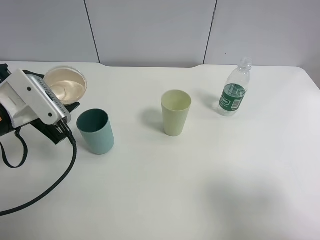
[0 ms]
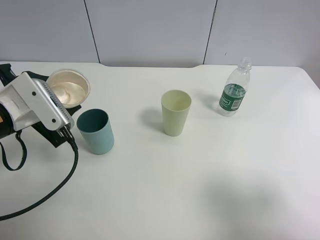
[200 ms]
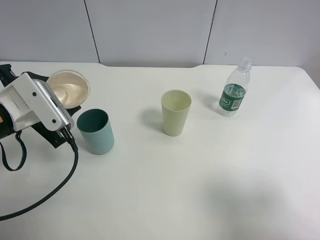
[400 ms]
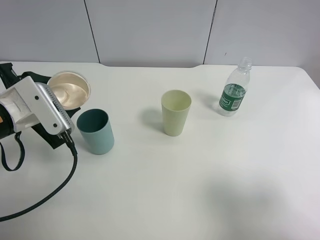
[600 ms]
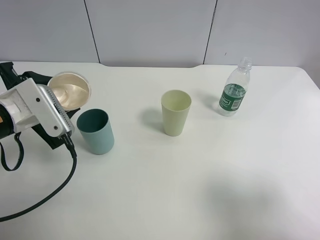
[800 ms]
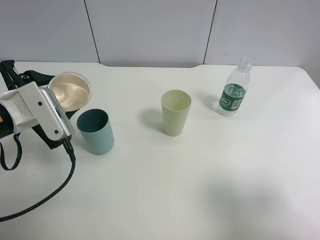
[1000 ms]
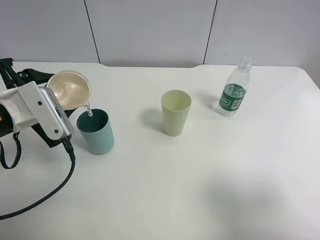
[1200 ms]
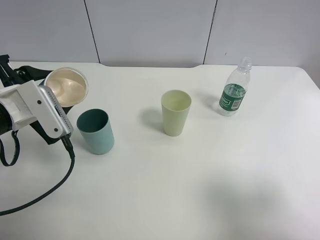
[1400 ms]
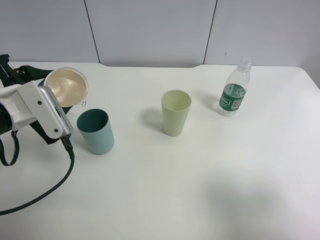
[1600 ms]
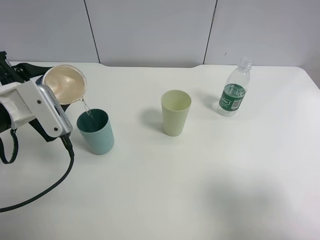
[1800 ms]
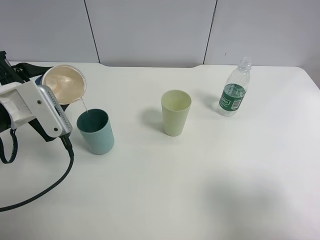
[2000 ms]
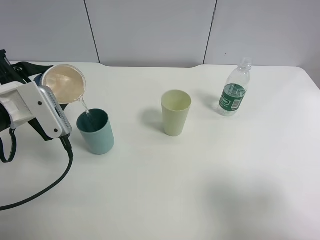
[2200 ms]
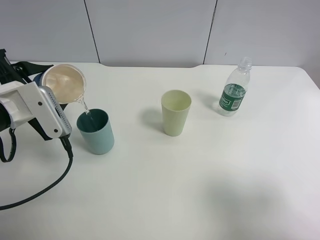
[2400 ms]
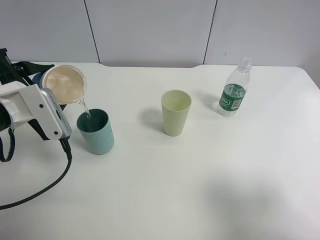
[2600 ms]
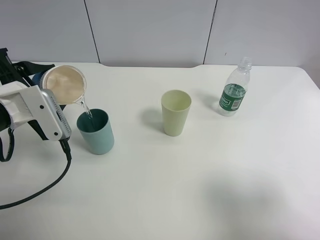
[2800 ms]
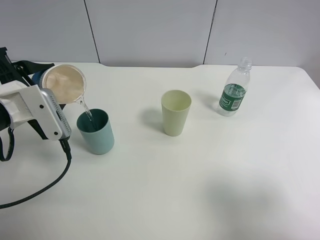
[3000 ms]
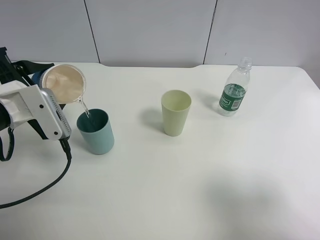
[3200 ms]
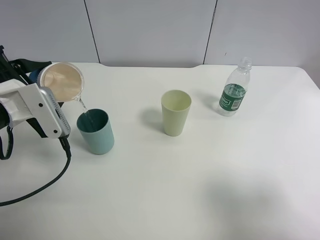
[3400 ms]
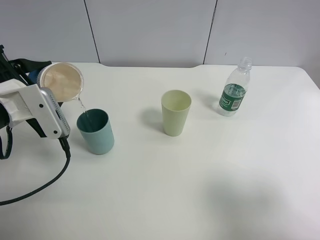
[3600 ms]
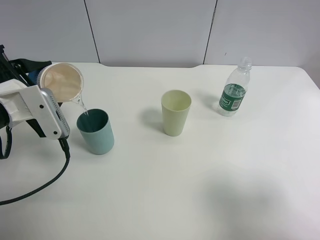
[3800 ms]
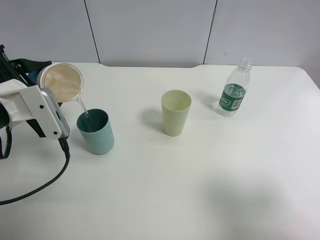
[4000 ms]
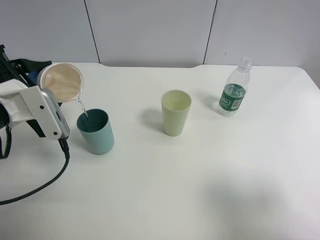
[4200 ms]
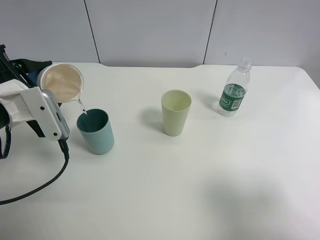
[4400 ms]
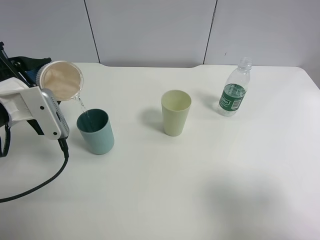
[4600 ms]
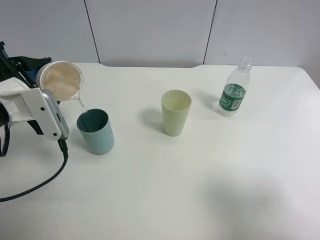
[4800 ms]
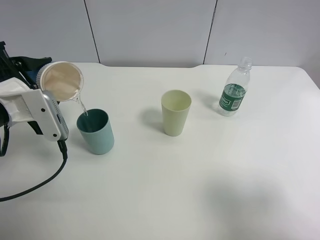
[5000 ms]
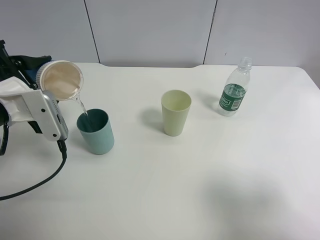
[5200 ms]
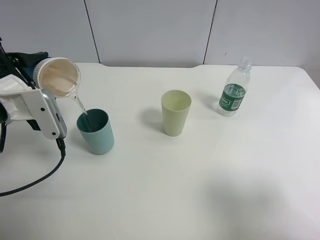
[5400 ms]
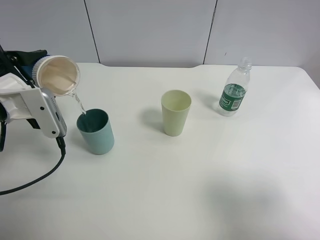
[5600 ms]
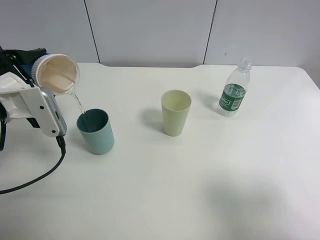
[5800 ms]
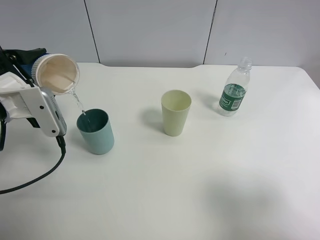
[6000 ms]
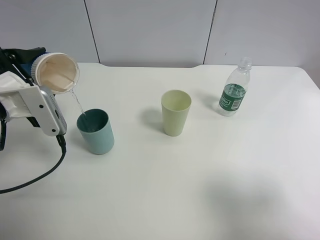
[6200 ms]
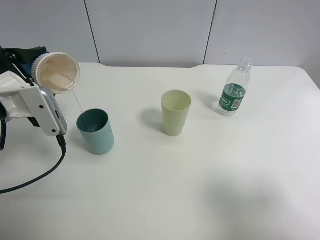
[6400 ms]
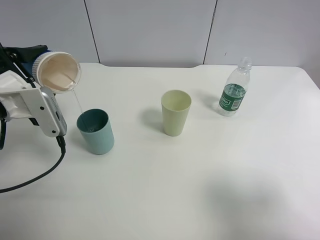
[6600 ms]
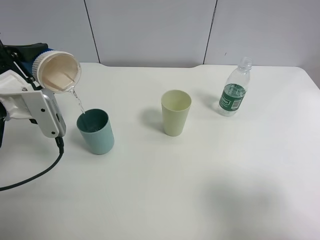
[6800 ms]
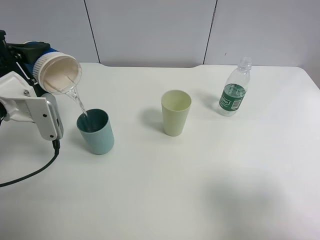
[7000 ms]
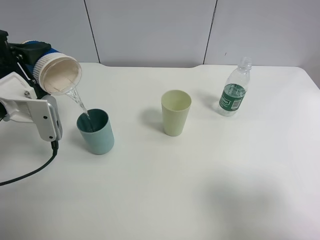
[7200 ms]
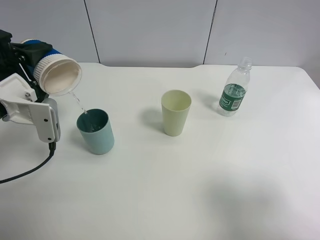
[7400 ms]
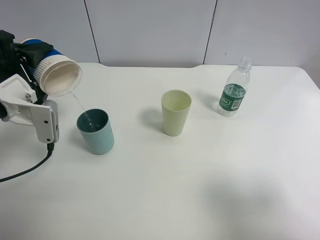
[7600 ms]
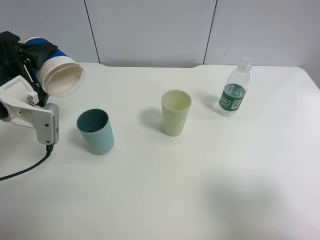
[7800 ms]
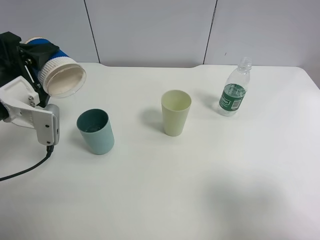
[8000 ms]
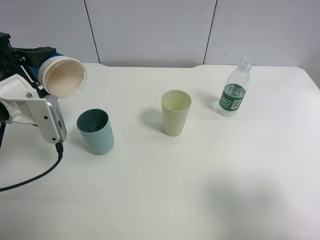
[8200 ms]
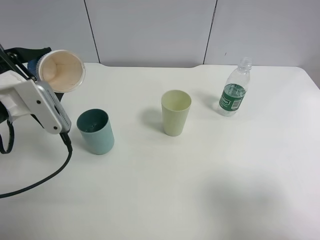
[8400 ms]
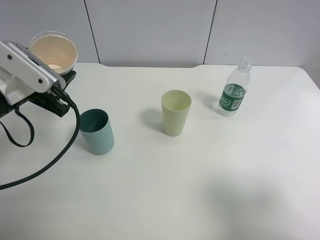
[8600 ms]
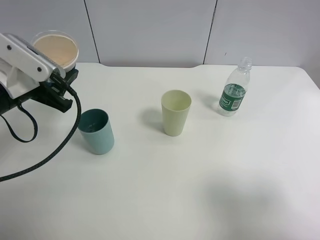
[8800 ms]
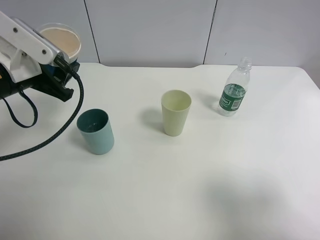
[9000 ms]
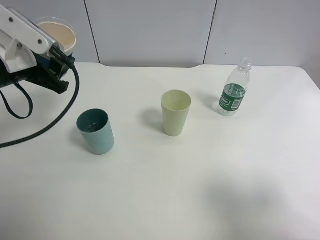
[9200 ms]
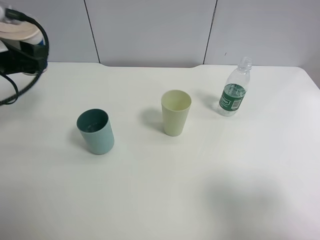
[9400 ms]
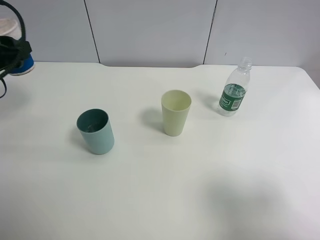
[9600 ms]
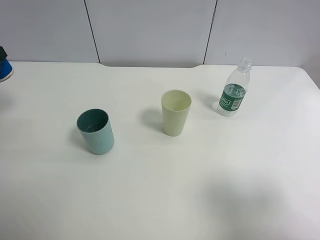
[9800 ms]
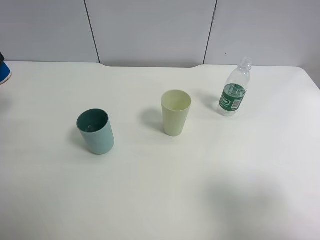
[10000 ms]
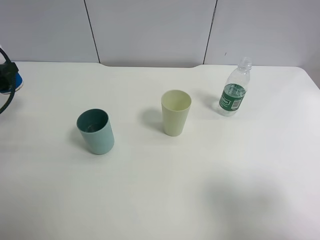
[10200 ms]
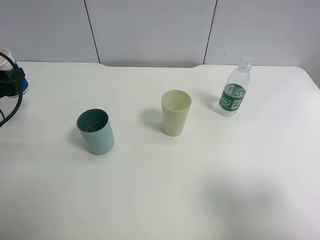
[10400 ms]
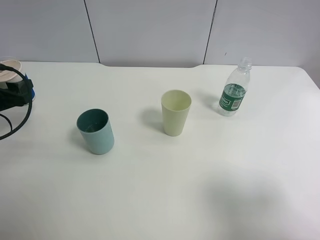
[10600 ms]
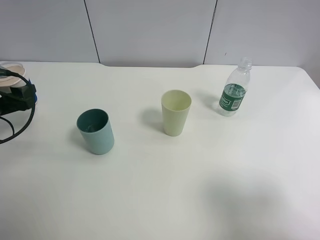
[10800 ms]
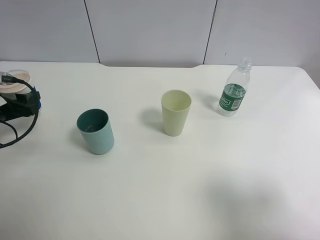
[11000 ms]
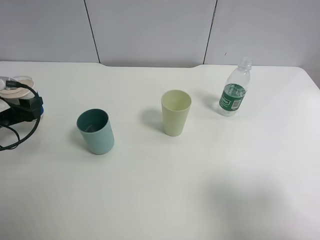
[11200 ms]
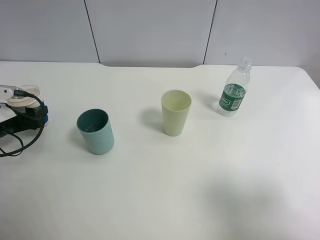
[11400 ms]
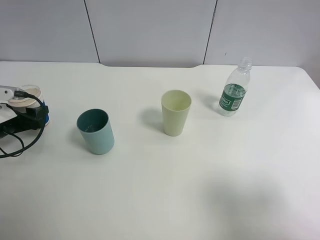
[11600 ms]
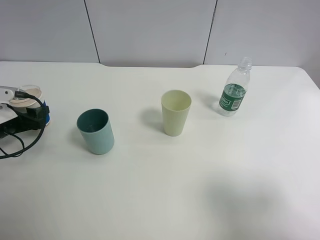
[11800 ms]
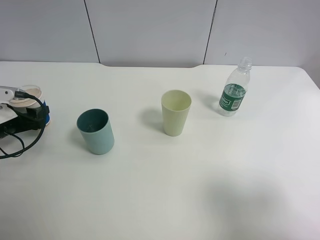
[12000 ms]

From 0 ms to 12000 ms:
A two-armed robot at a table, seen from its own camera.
Task of the whole recording: use a clamp to hold the bottle of the drink, pour the beverage into a random cup, then clamp the cup containing the drink and pour the drink into another random cup.
Step, from 0 ms to 8000 ms: Pour the water into the blue plastic cup with left gripper.
From 0 ms to 1600 ms: The grippers move only a little.
From 1600 ms to 4400 ms: The grippers stay close to where they were, moving slightly.
From 4400 ms to 6000 ms: The grippers make only small movements.
From 9000 ms to 10400 ms: The left gripper is displaced to the left and downward by approximately 15 cm.
From 10400 ms to 12000 ms: The left gripper moves downward, roughly 10 cm.

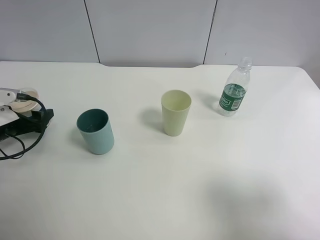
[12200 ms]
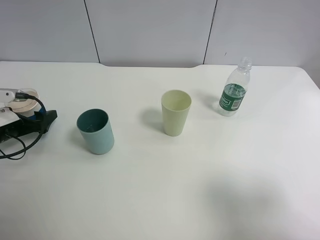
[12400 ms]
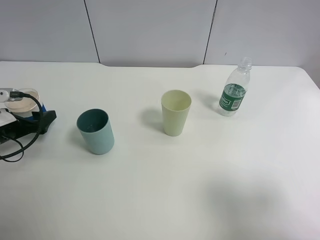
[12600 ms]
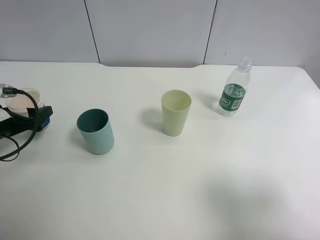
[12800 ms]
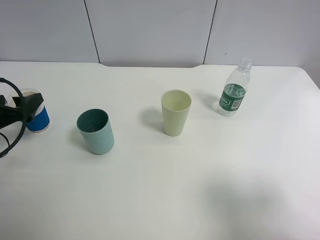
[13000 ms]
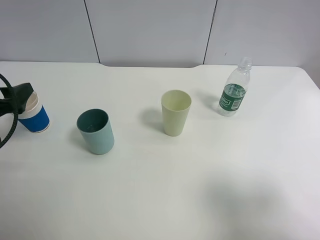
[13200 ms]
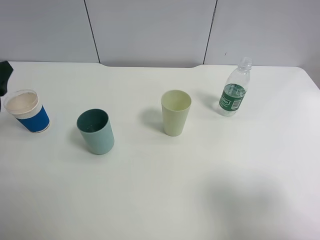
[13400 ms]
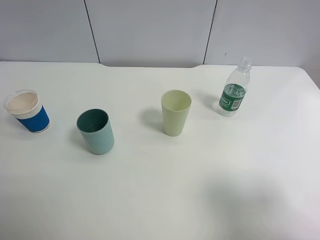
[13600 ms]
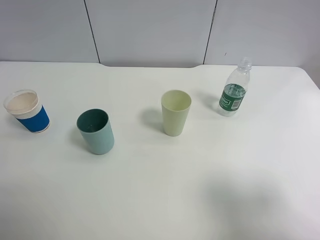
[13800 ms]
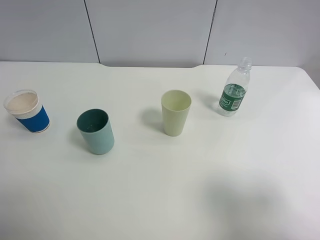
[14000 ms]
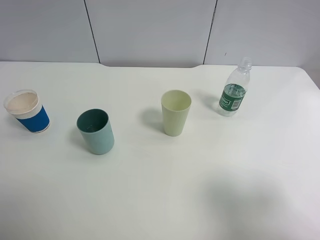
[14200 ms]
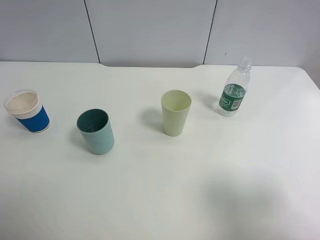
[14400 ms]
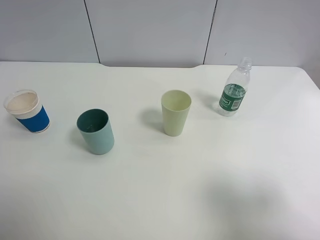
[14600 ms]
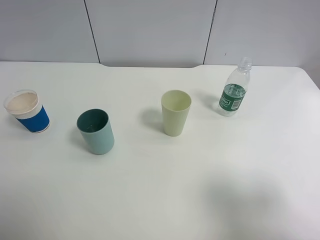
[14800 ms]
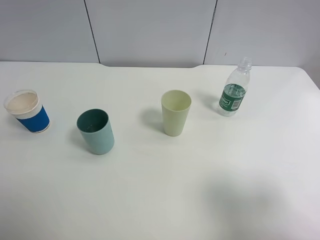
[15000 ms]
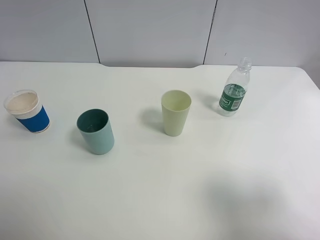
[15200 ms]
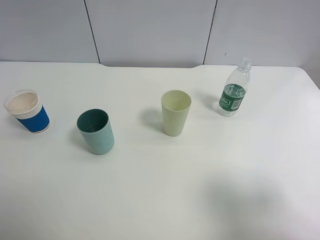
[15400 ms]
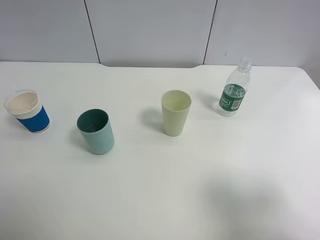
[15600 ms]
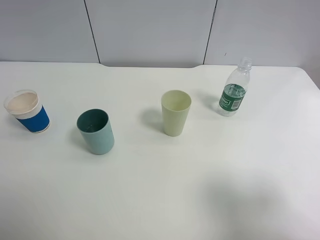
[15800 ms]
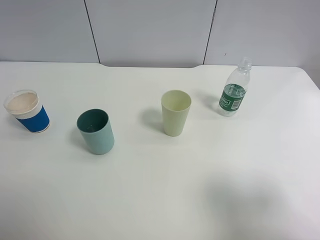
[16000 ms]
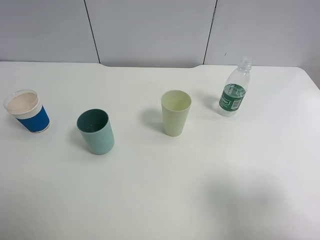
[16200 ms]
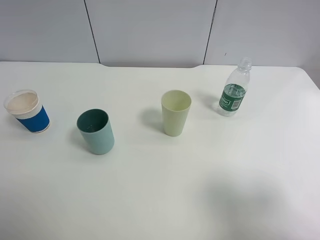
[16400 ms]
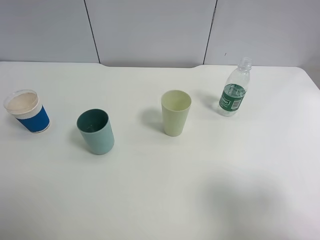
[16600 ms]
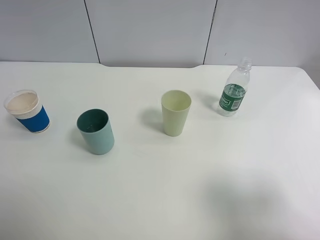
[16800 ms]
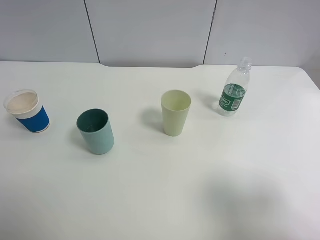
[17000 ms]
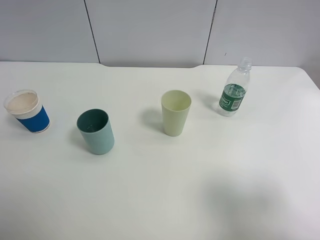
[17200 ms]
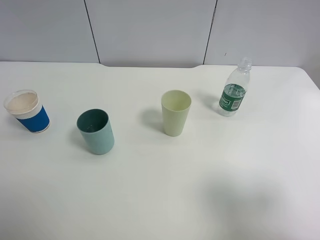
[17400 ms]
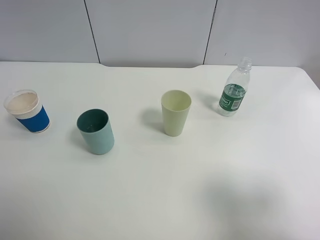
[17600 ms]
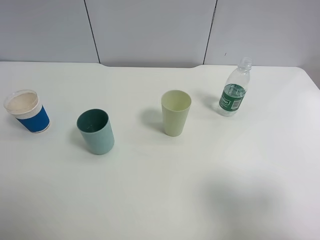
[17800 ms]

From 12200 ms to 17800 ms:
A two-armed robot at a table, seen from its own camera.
Task of the whole recording: use a clamp to hold the bottle of the drink, pour the beverage into a random cup, then clamp the cup containing the drink and pour the drink into another random cup.
From 12200 ms to 13600 ms: The left gripper is displaced upward and backward by about 15 cm.
From 16400 ms to 17800 ms: Neither gripper changes place.
